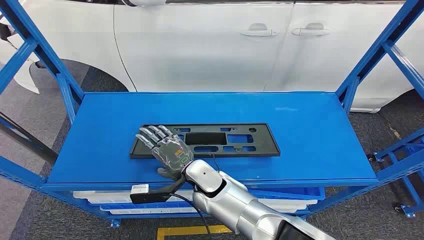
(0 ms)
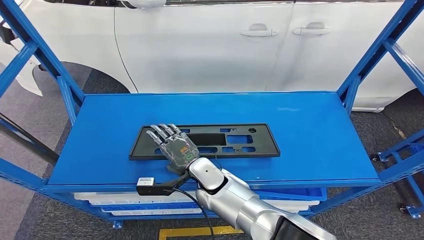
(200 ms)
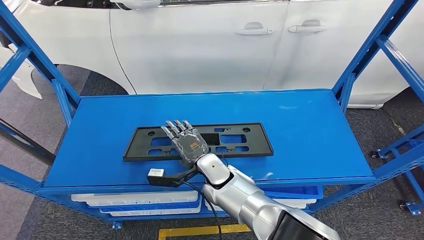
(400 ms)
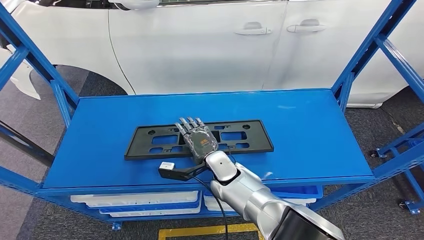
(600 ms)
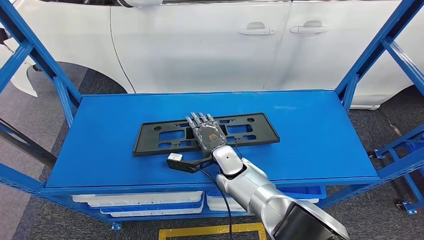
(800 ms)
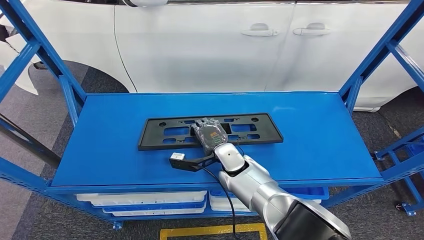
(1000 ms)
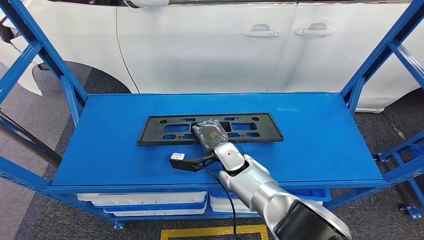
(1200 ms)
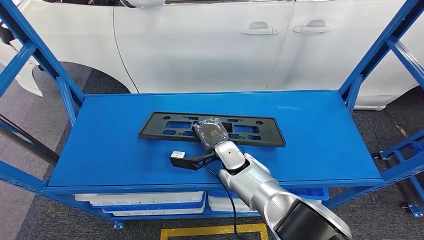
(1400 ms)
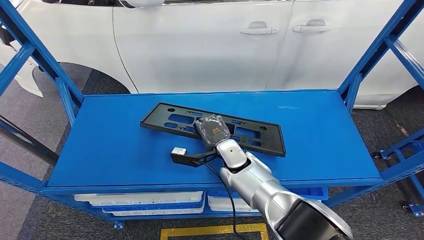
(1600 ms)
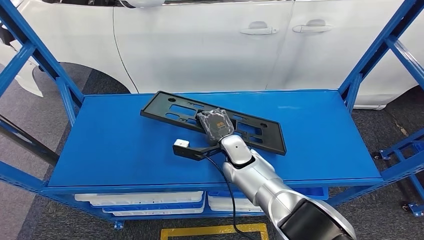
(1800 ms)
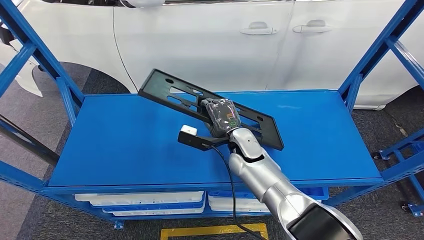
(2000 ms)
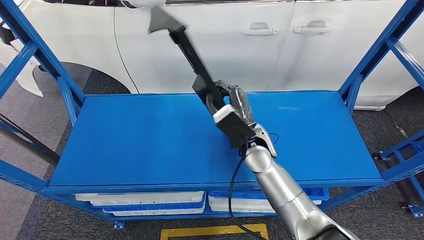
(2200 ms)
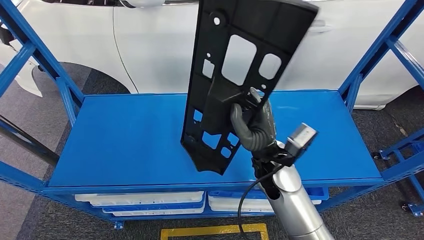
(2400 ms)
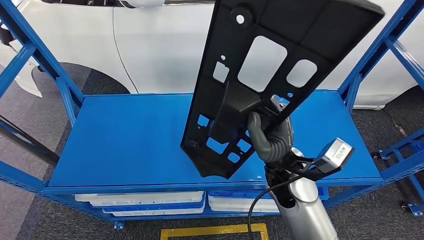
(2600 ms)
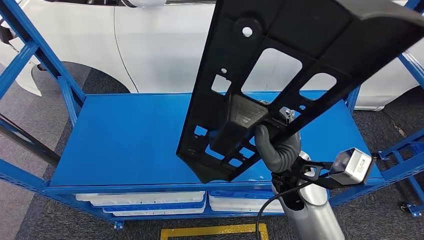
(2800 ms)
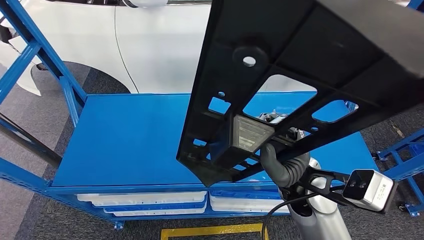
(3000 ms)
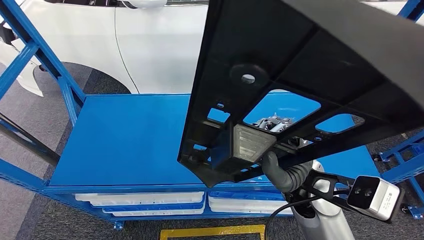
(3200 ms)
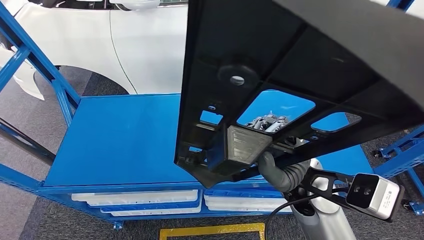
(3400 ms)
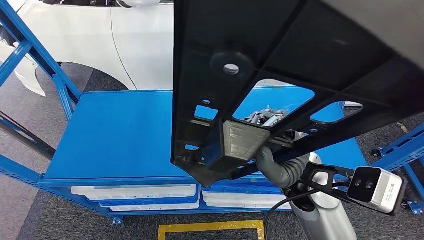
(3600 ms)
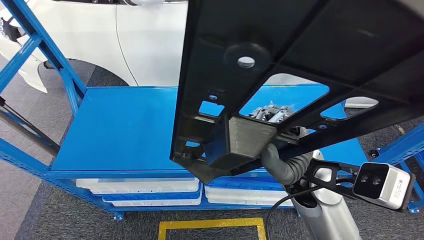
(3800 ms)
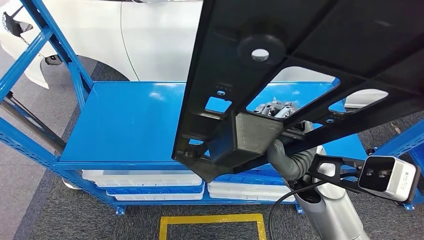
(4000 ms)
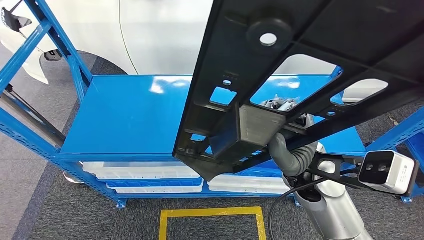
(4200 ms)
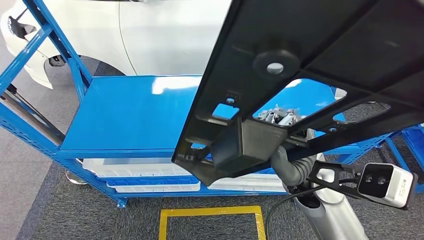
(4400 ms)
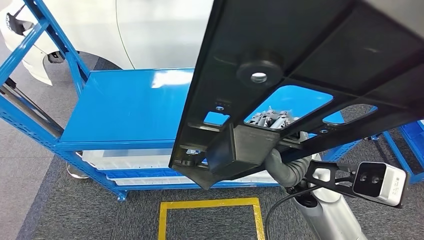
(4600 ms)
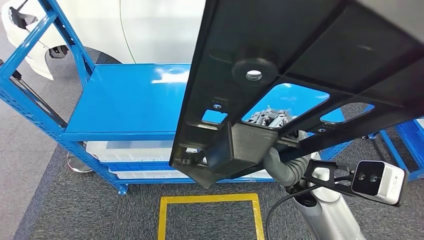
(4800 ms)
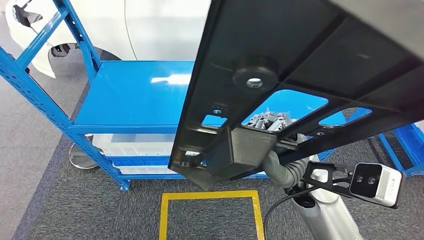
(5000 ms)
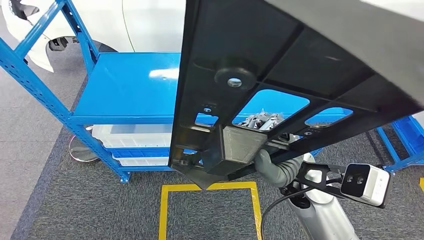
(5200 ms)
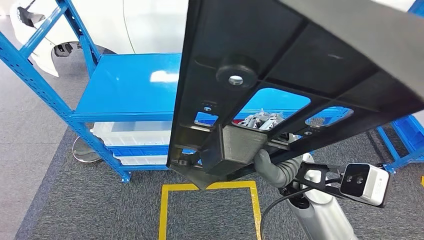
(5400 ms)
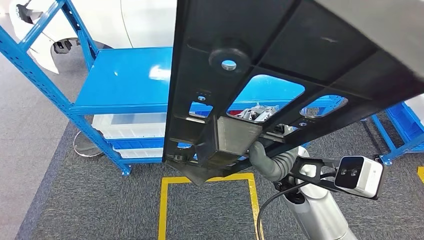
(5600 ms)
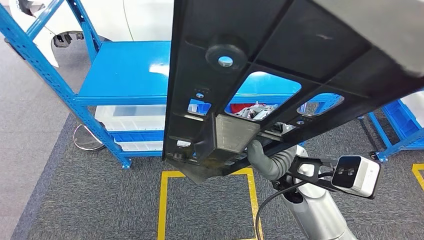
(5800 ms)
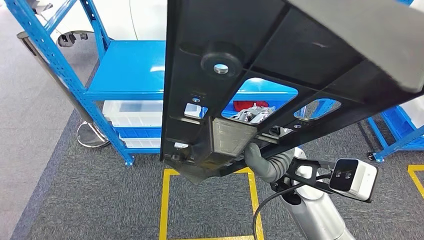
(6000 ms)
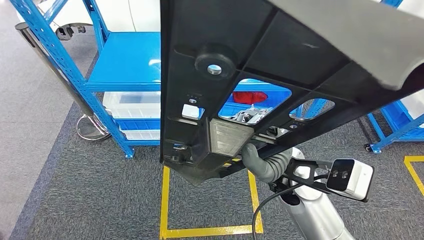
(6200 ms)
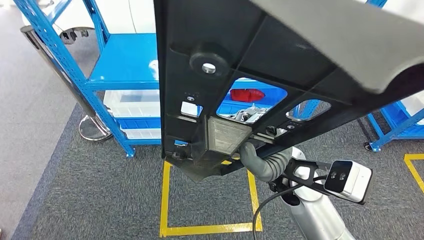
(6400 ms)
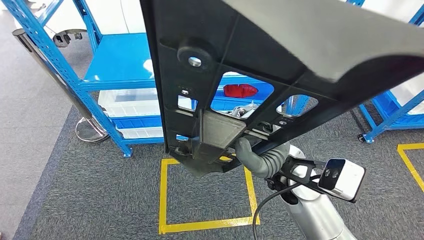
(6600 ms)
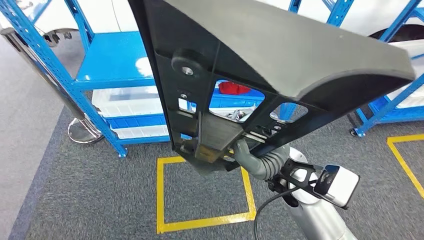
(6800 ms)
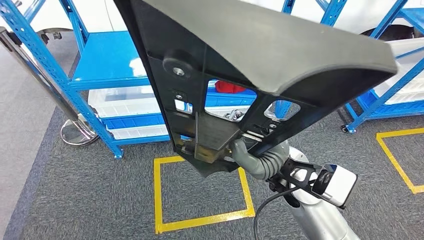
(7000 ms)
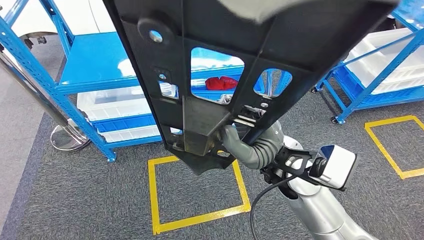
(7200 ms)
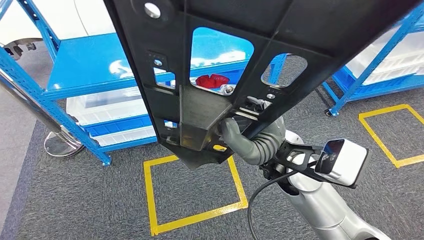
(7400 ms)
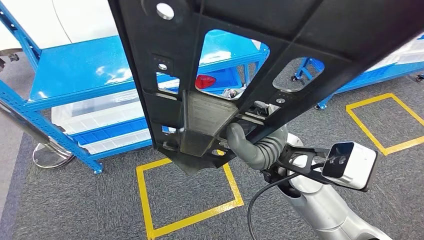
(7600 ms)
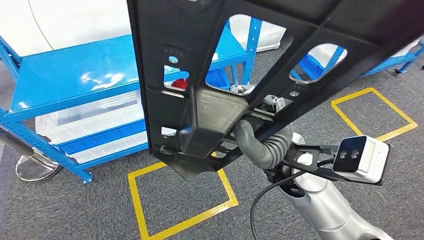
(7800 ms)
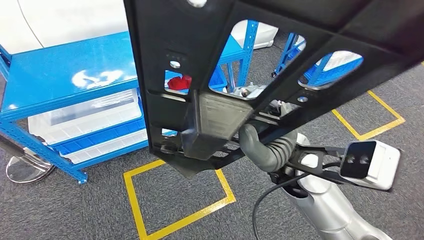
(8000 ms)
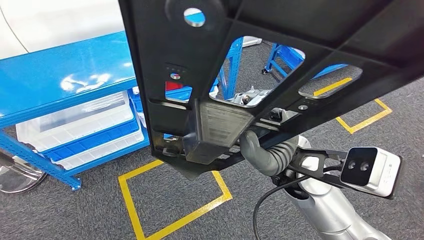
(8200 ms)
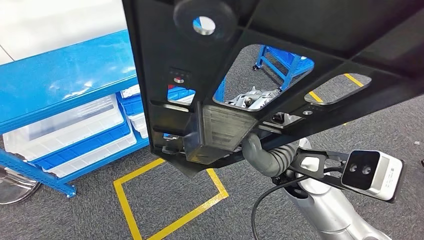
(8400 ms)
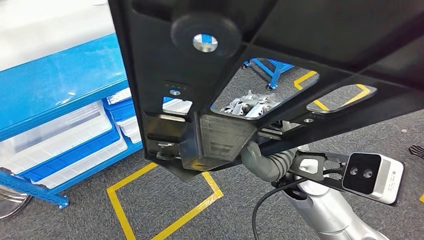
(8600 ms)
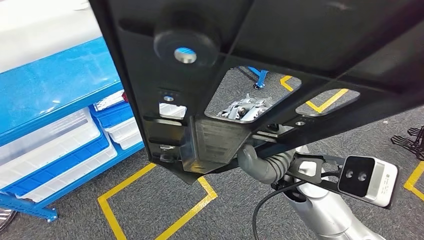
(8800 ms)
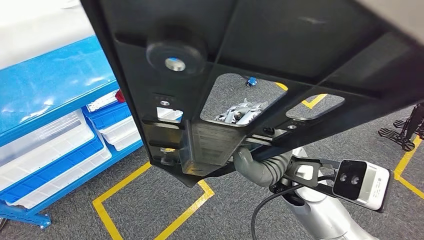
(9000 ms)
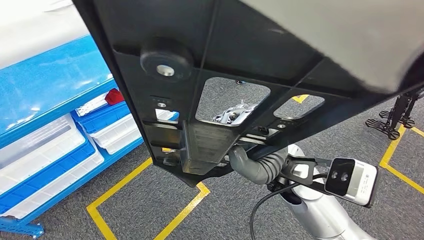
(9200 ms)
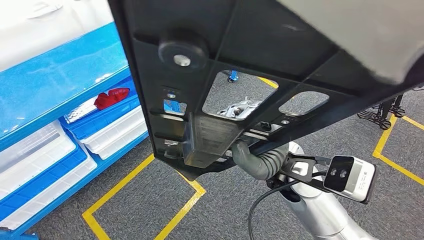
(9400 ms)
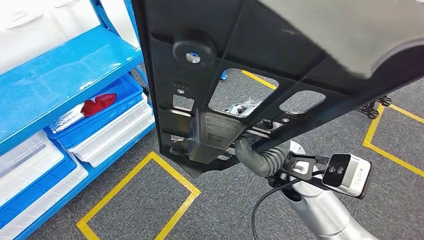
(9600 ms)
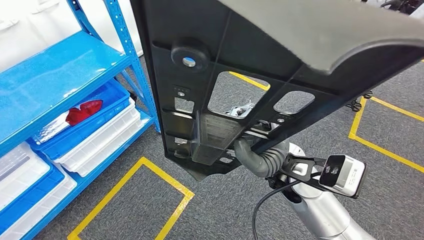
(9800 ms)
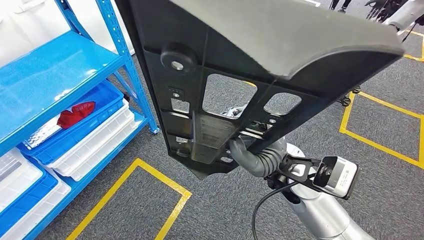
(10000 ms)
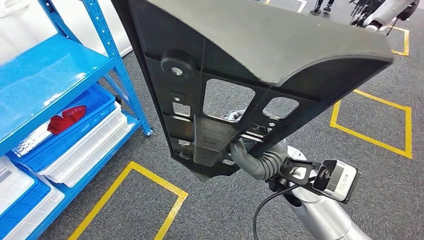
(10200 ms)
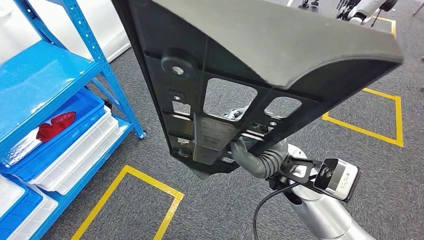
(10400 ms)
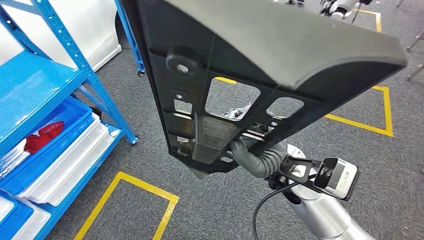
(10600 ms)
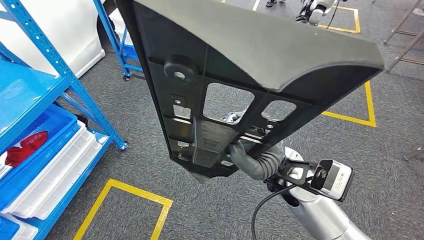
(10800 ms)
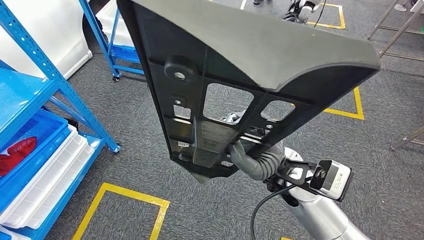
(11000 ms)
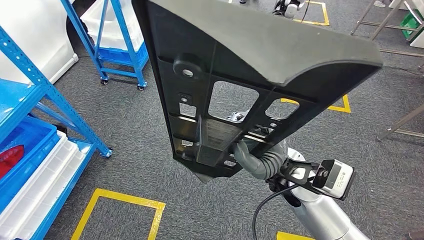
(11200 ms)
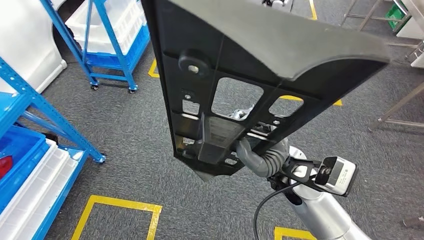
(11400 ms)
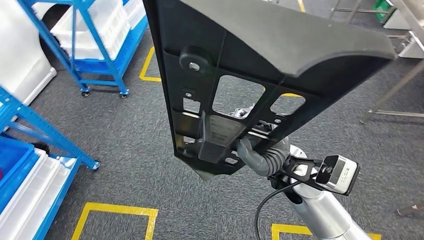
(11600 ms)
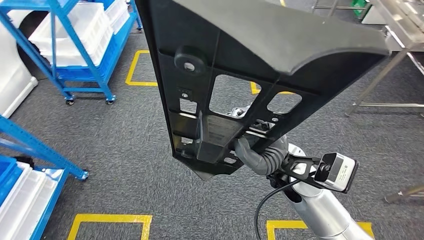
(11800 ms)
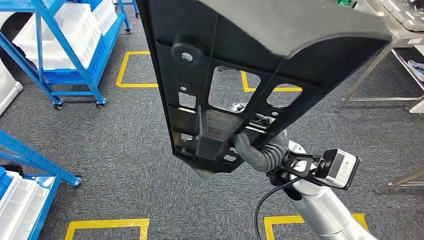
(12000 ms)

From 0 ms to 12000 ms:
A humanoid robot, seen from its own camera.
Step, from 0 ms to 3000 ms: Pick up the small parts from the shelf.

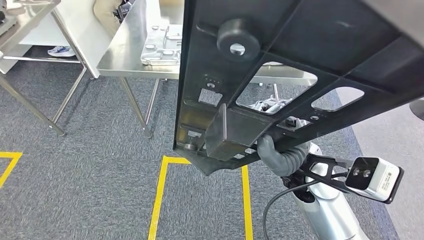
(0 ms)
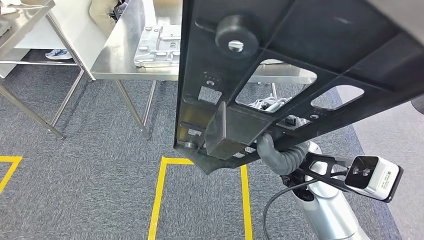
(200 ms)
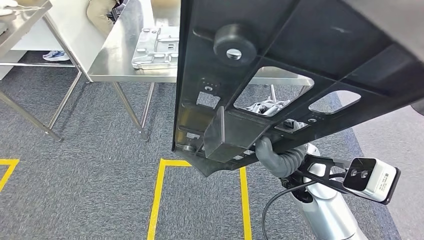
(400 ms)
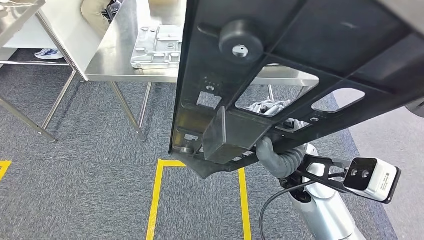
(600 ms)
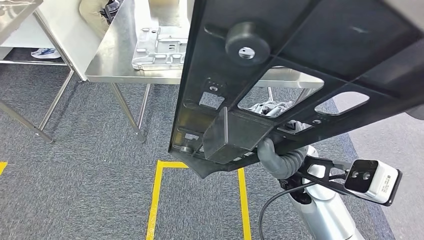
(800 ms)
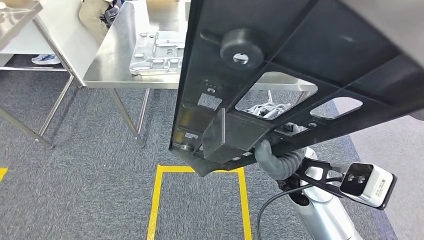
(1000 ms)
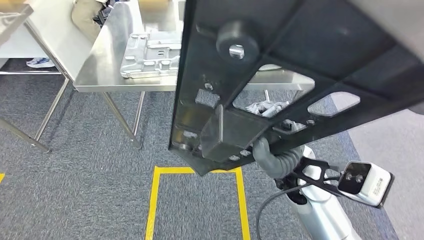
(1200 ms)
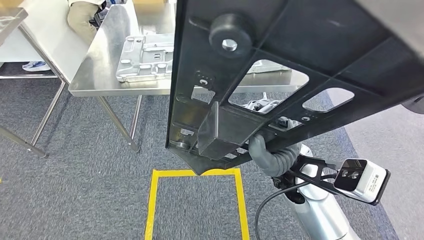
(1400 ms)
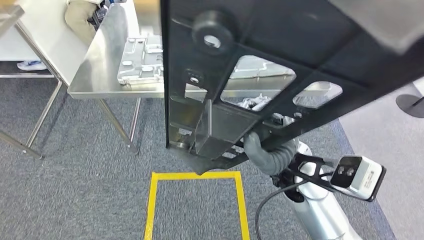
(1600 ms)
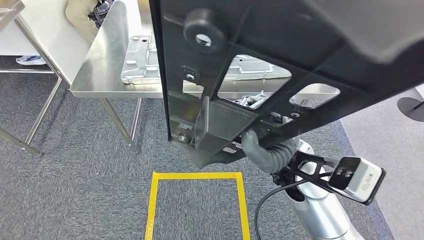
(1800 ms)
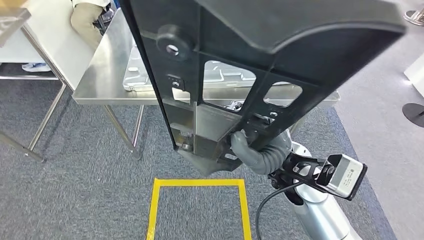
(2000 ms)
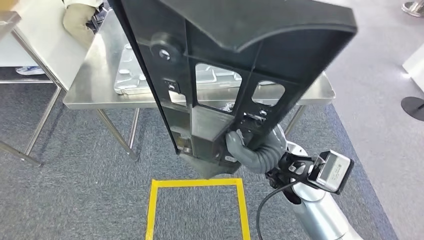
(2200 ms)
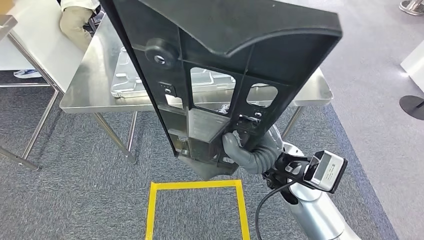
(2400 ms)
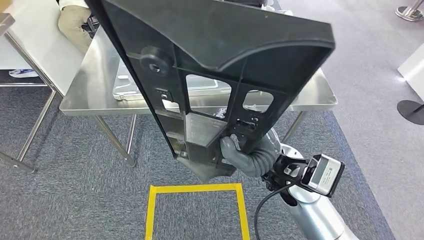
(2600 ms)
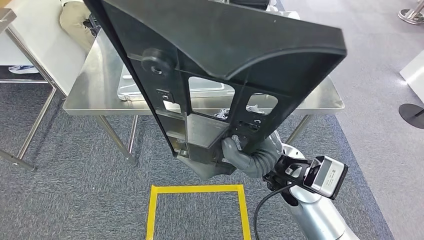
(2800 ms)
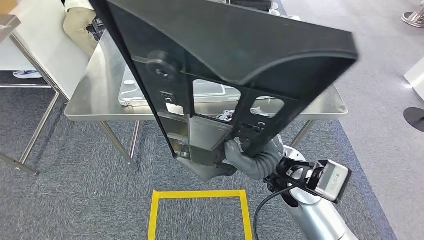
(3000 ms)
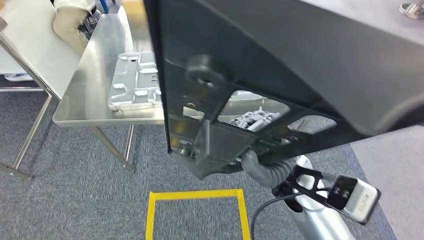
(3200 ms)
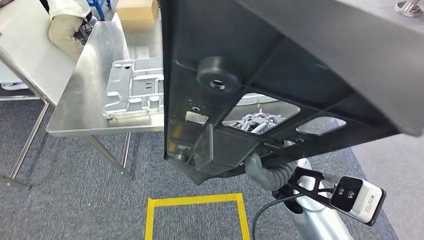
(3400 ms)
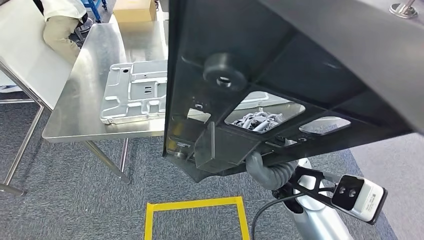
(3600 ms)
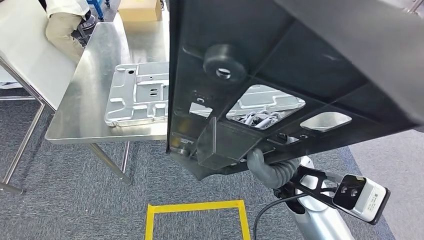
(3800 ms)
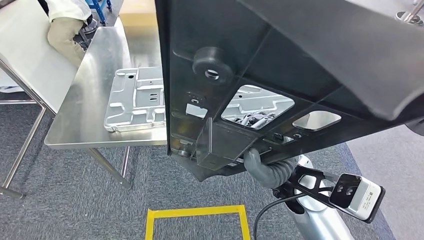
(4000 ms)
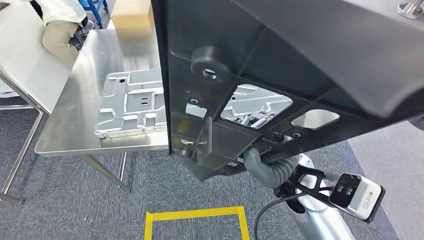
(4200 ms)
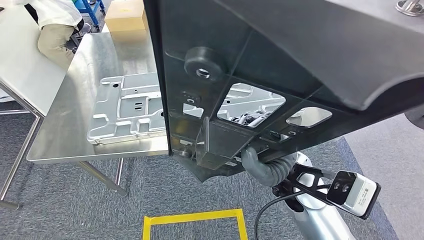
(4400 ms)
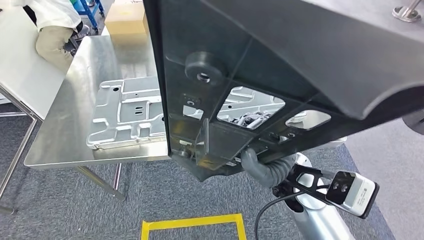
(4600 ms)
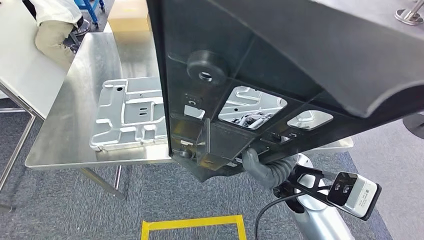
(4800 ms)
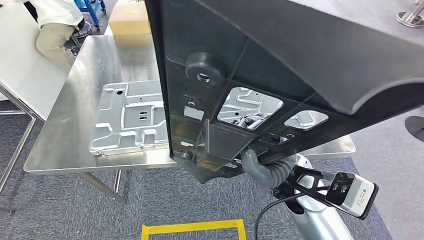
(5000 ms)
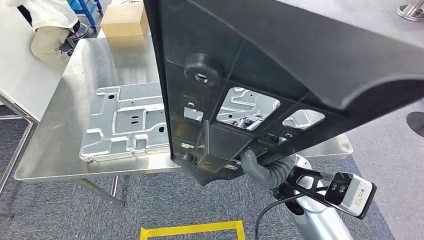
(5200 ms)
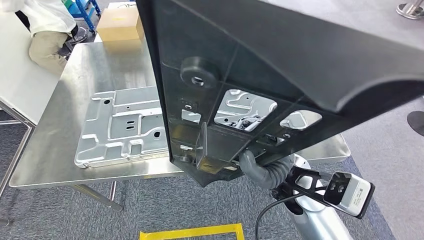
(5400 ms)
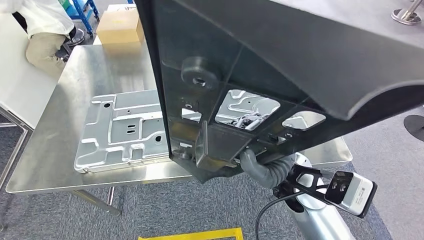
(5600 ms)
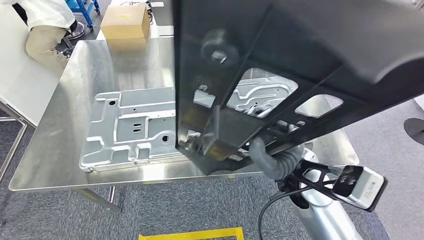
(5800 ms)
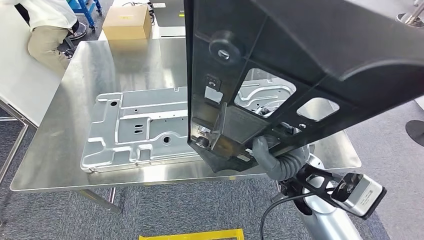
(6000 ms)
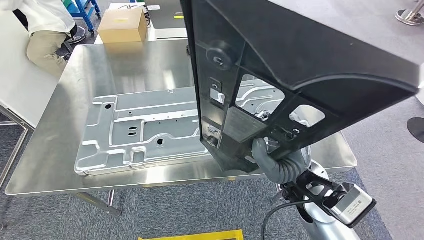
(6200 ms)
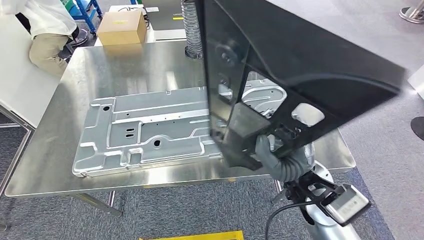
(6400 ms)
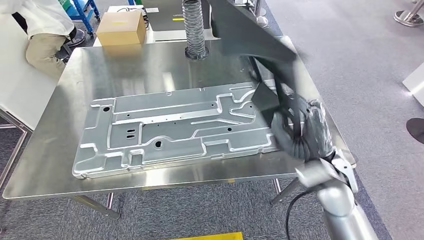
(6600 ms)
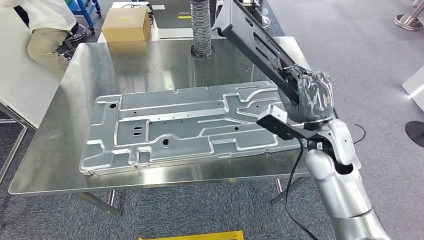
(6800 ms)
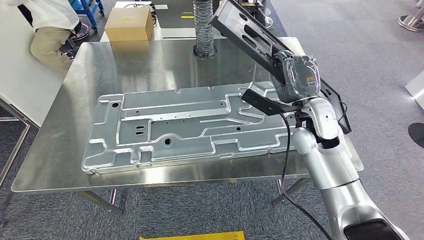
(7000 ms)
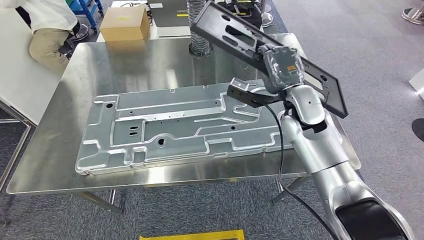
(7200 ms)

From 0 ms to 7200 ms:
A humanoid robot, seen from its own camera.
Step, from 0 ms to 5200 ms: Move the small parts to the workbench.
